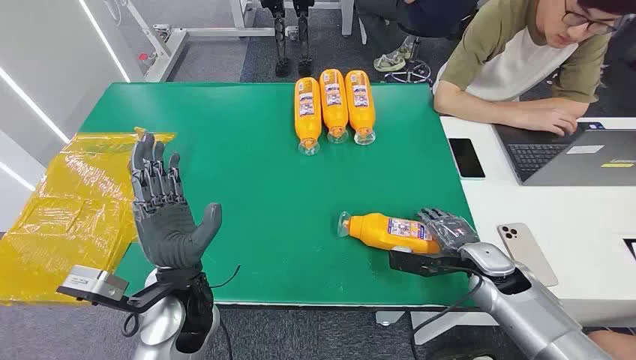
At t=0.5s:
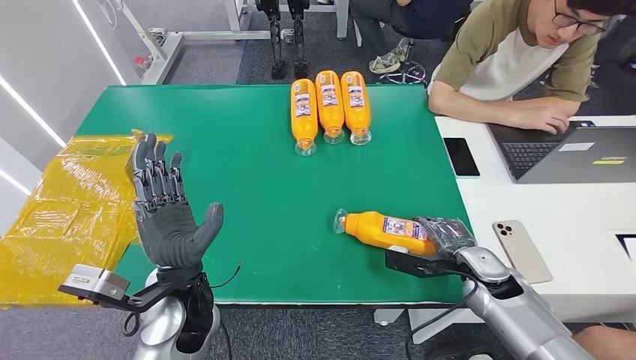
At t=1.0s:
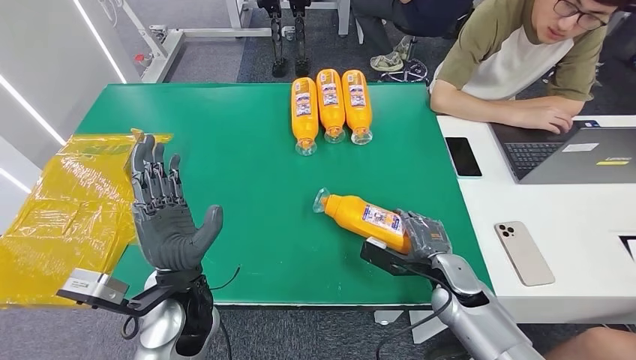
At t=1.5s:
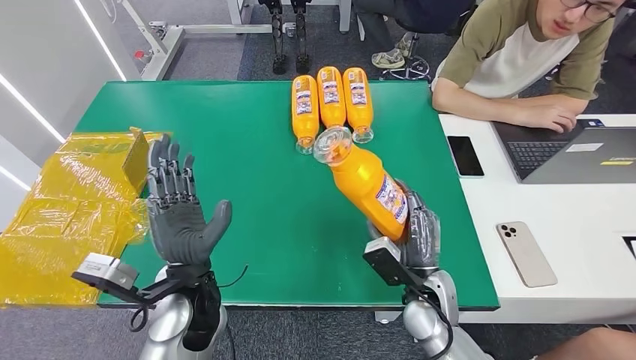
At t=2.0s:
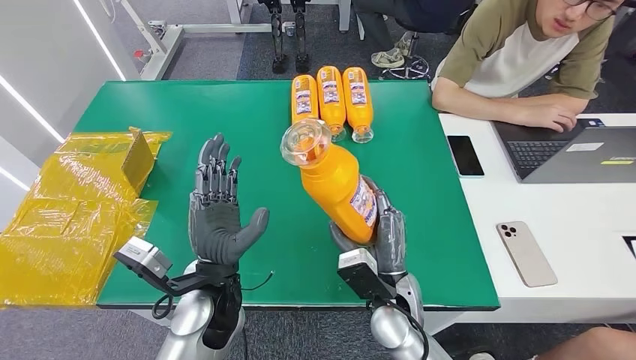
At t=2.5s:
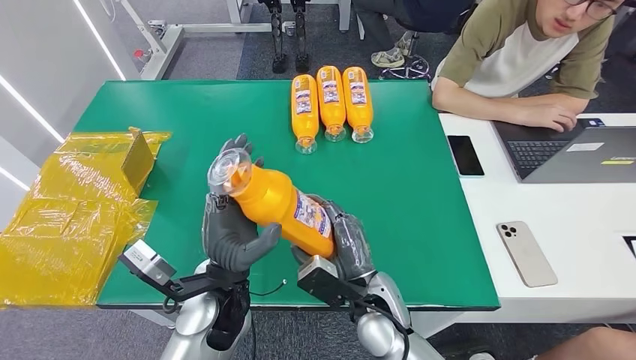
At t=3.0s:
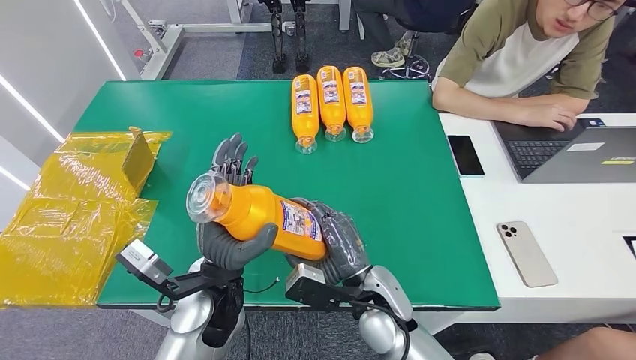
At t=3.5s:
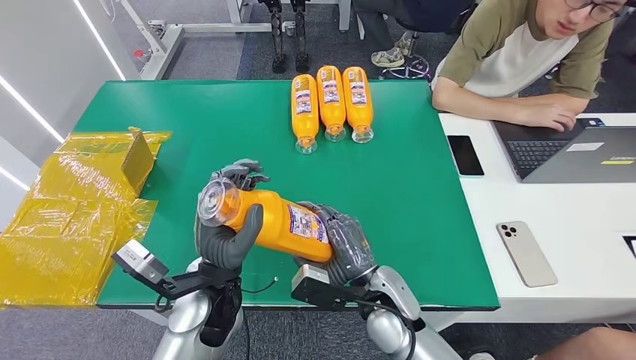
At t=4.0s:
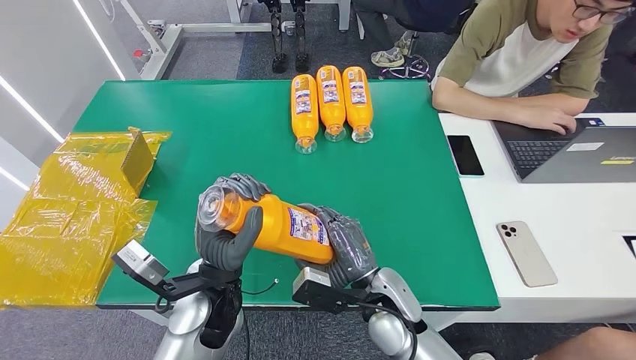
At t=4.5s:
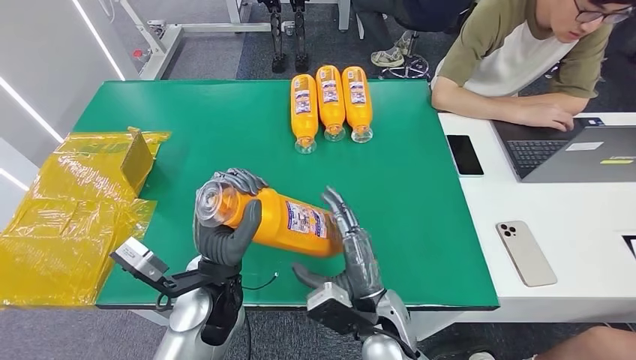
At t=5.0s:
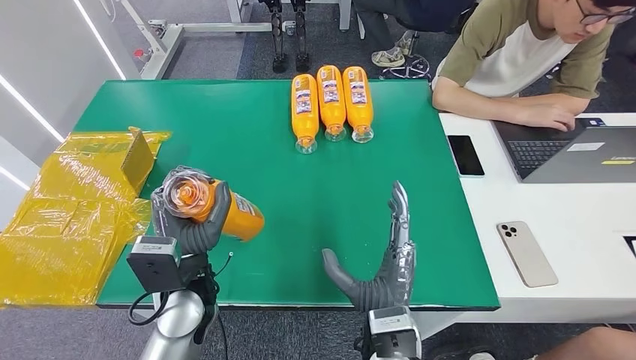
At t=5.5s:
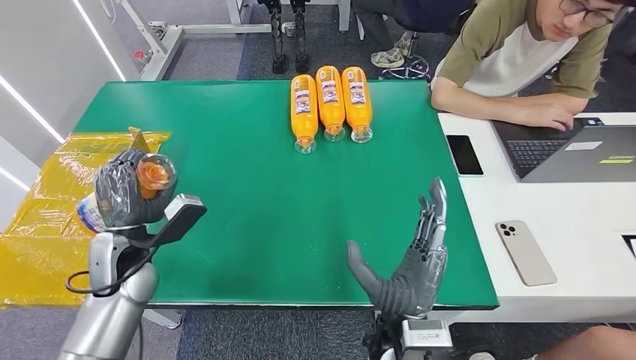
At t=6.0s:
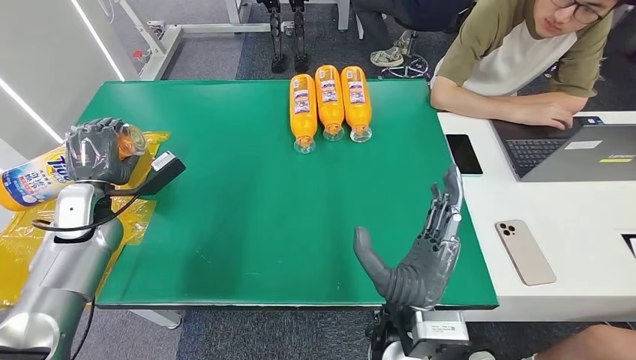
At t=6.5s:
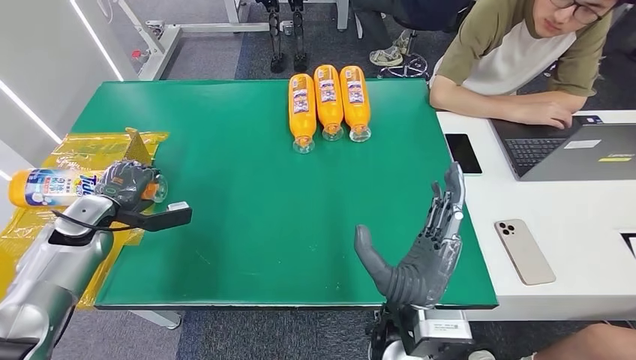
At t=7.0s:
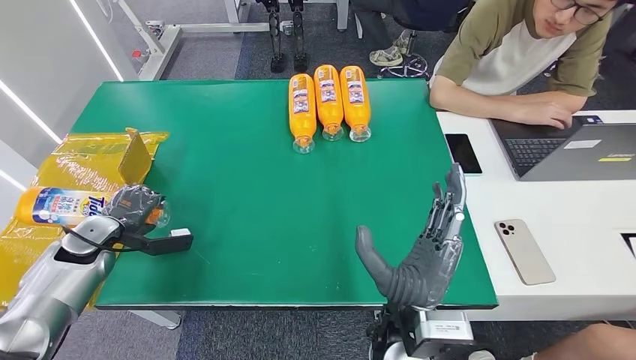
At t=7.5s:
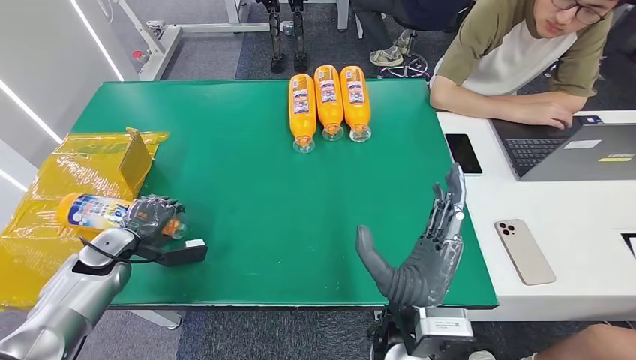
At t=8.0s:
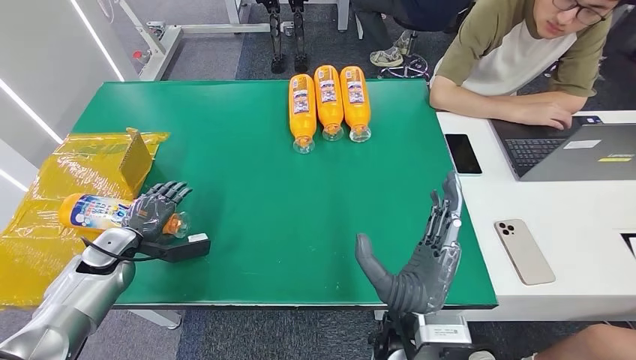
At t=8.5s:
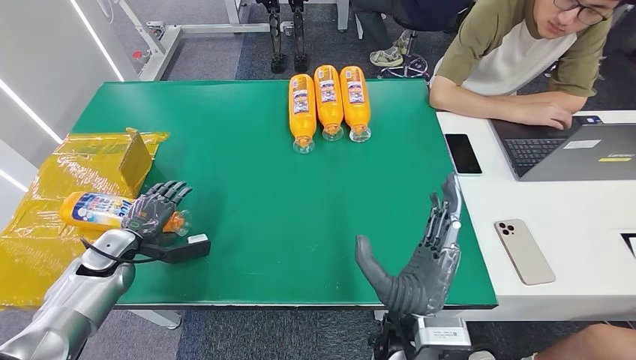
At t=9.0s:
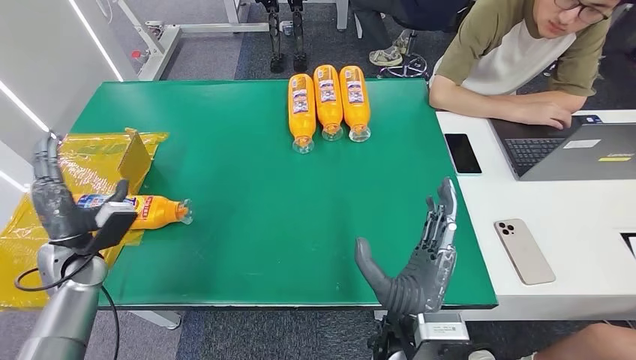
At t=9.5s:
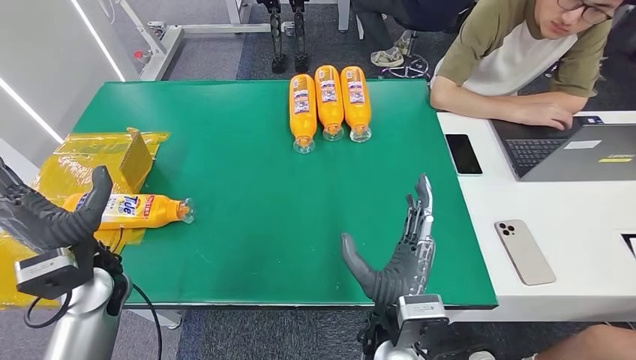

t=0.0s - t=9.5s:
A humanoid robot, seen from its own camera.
Step, t=0.0s - t=3.0s: Pick up the bottle from the table.
Step, t=3.5s - t=9.0s: Turn the bottle to the front side.
t=4.0s - t=5.5s: The right hand heads backward, covering approximately 5 cm; the left hand travels to the left by about 20 cm.
t=5.5s - t=7.5s: The left hand shifts about 15 cm to the left and downward.
t=7.5s - t=9.5s: The left hand moves to the right and upward, roughly 15 cm.
